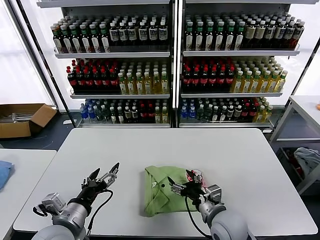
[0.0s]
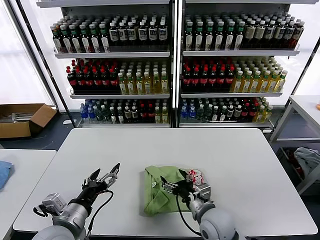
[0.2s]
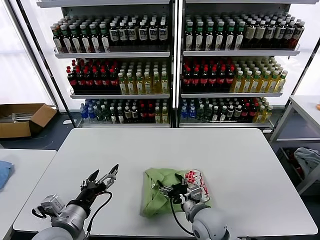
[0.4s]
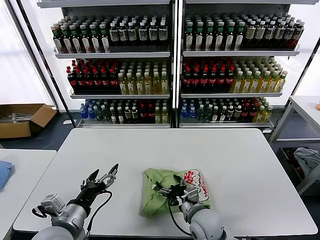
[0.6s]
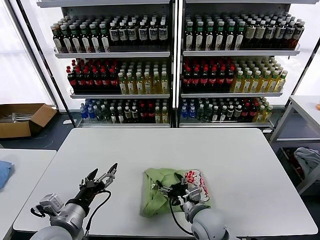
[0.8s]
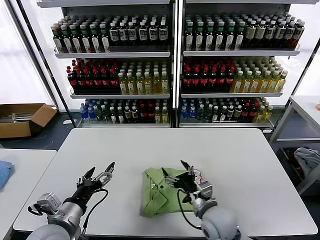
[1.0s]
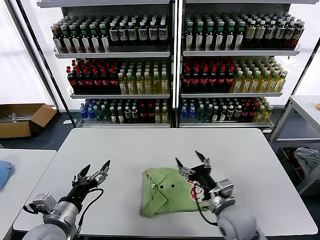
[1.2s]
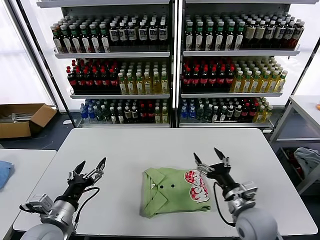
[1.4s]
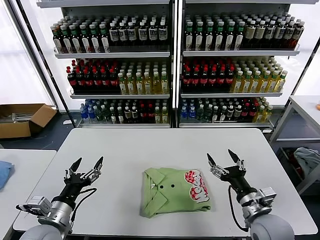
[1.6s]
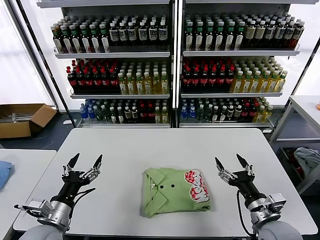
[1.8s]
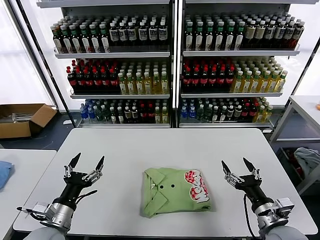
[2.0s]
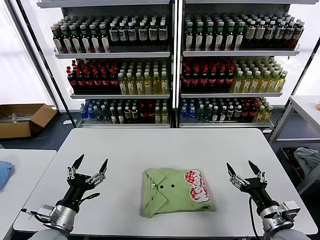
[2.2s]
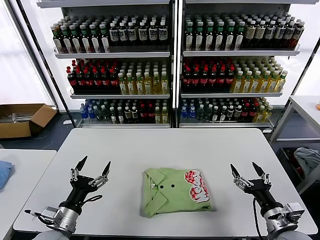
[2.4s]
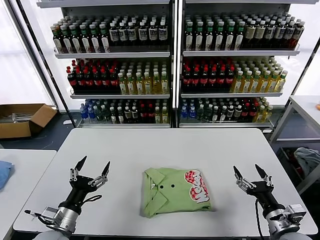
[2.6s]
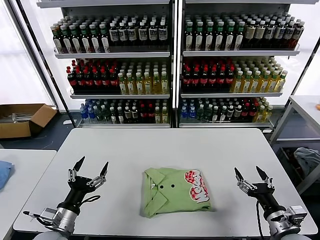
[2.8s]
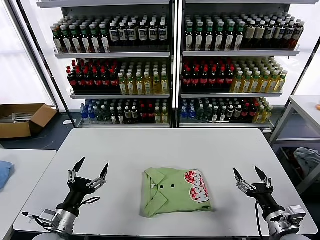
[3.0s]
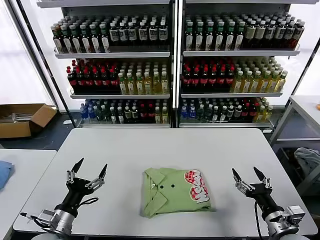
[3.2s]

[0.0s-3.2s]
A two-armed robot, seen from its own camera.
Task of the whole recording: fold and organize the clothes.
0.0s to 1.6s: The left gripper shifts by approximately 5 cm. The right gripper moves to the right, approximately 10 cm.
1.6s to 3.2s: The right gripper shifts approximately 5 cm to the right.
